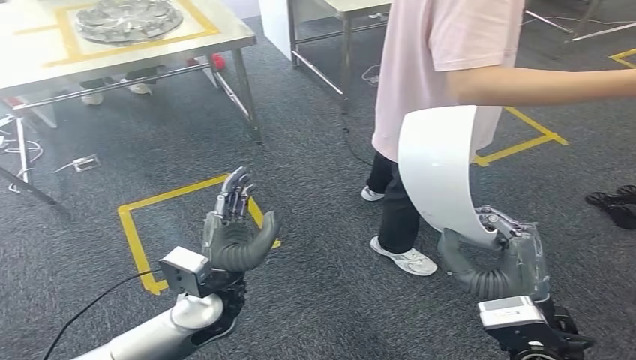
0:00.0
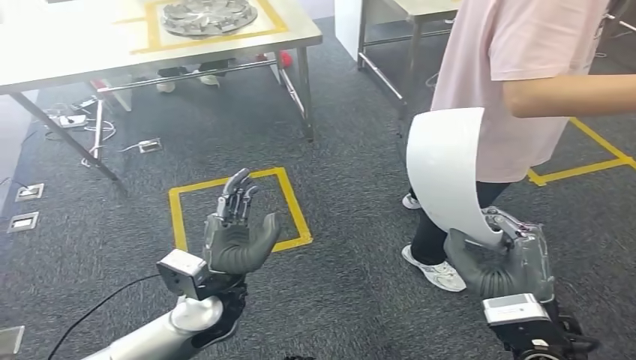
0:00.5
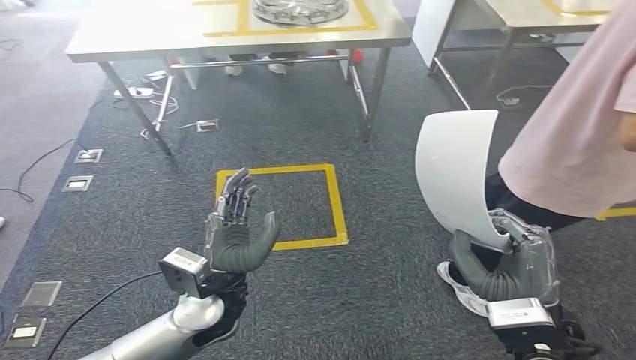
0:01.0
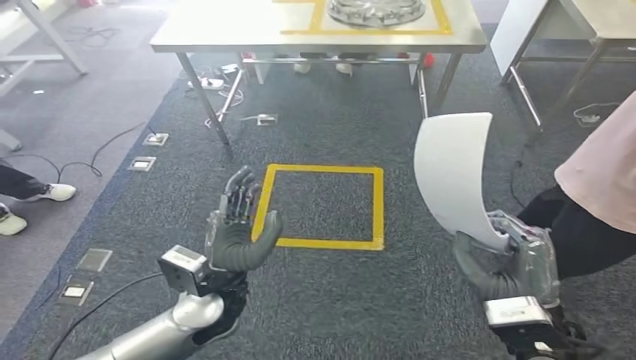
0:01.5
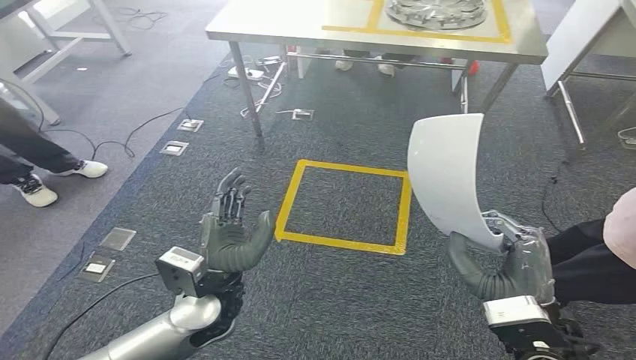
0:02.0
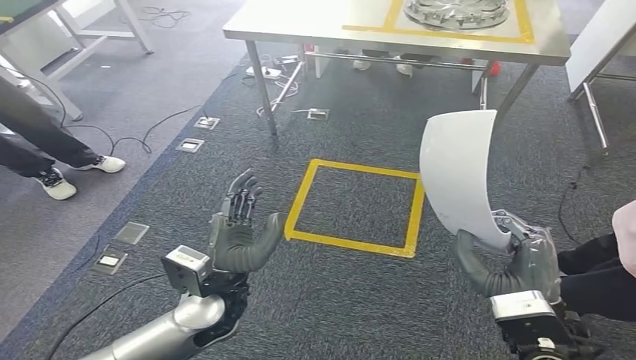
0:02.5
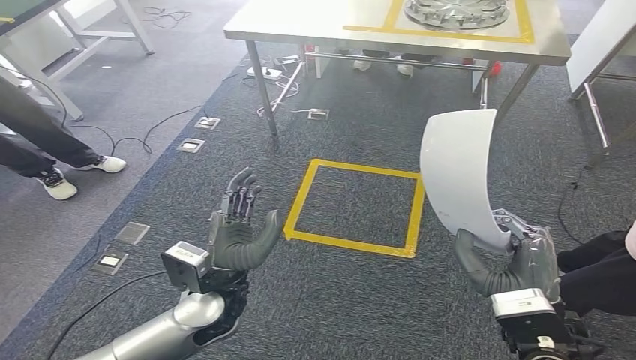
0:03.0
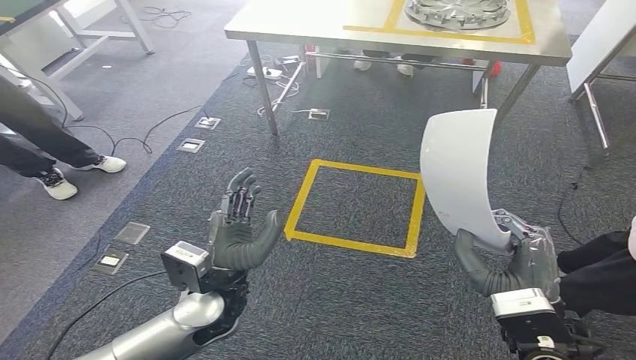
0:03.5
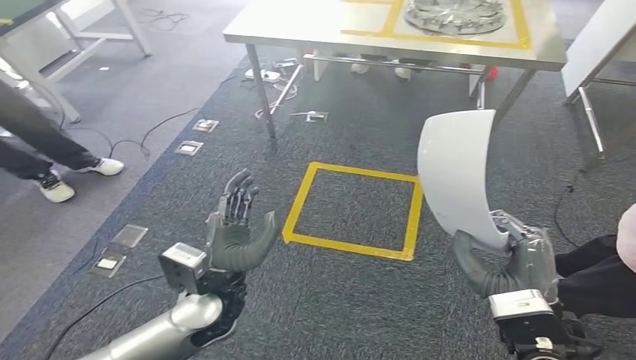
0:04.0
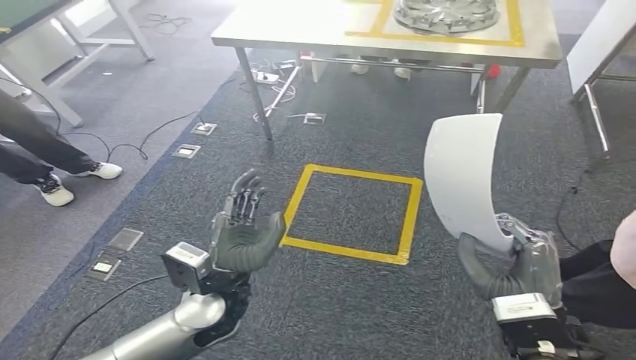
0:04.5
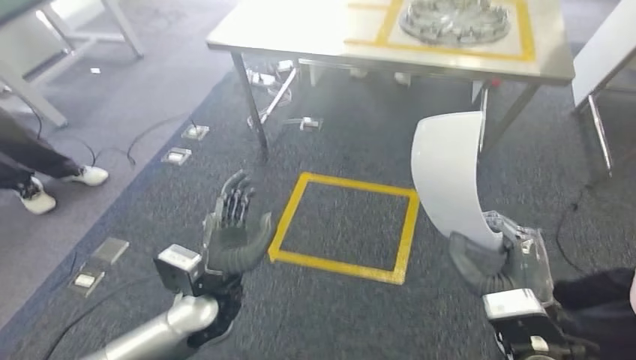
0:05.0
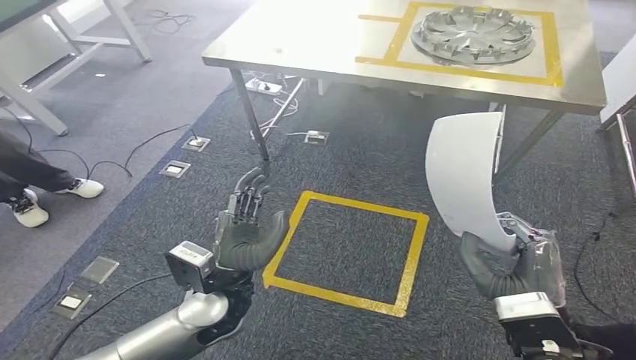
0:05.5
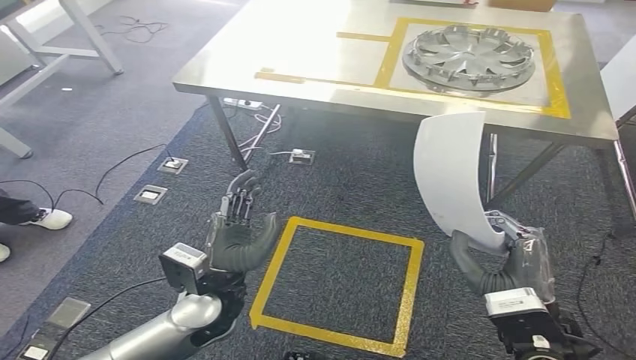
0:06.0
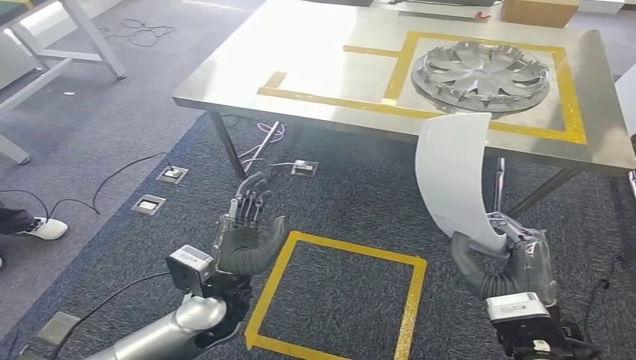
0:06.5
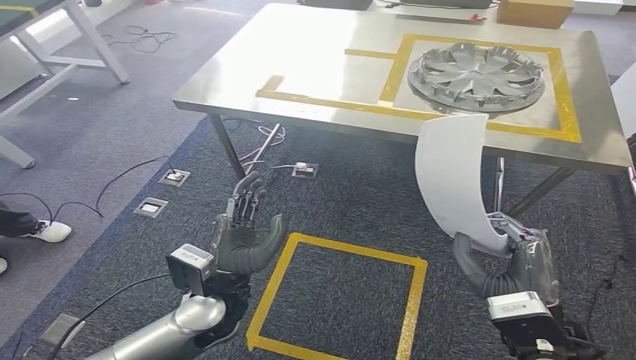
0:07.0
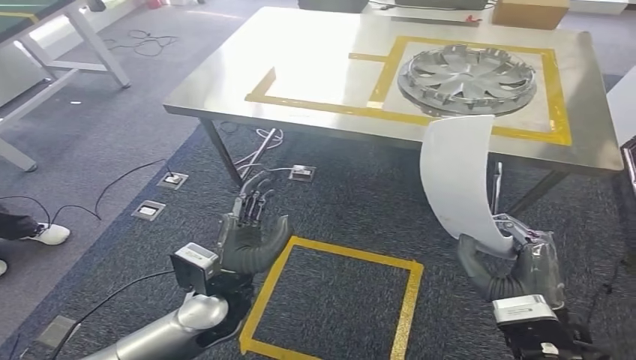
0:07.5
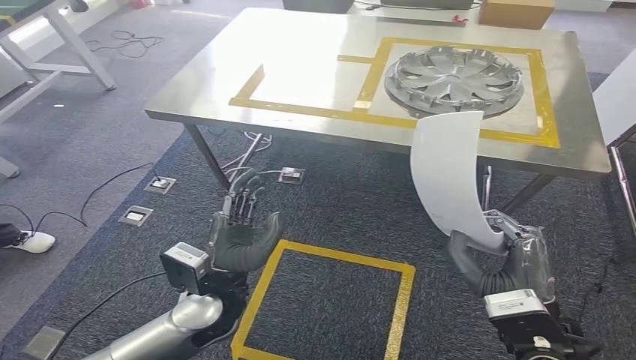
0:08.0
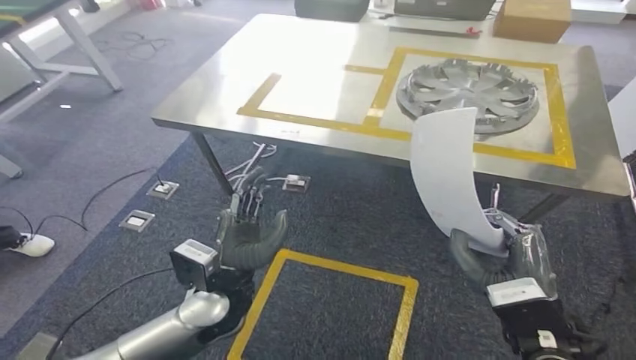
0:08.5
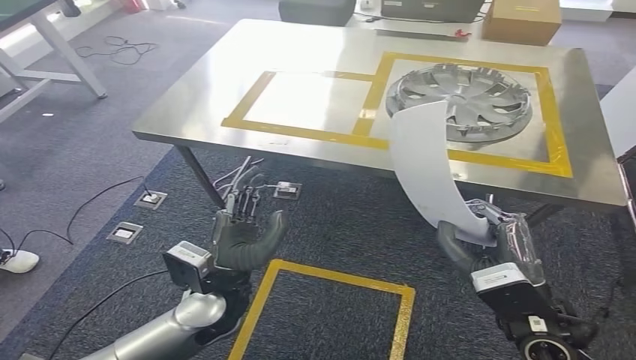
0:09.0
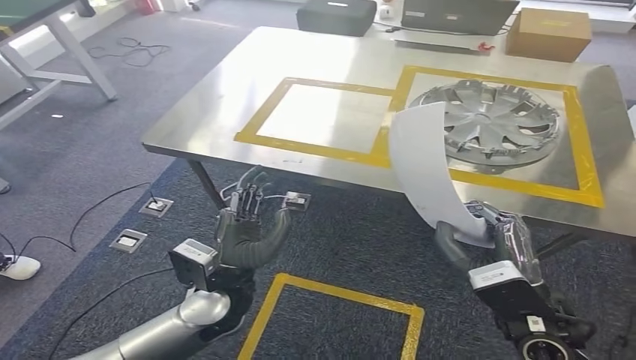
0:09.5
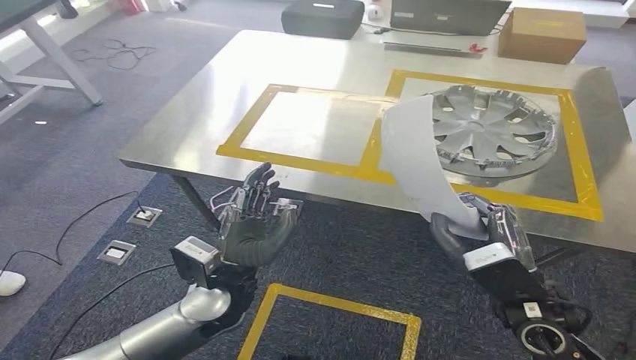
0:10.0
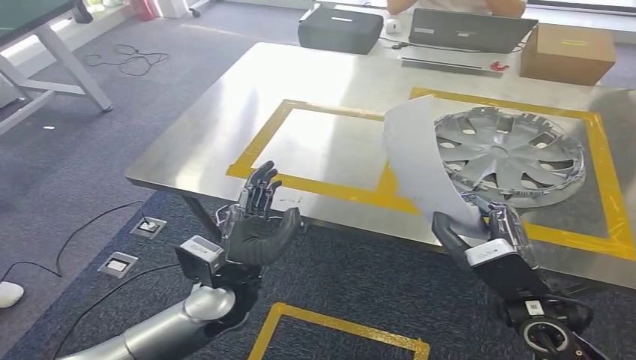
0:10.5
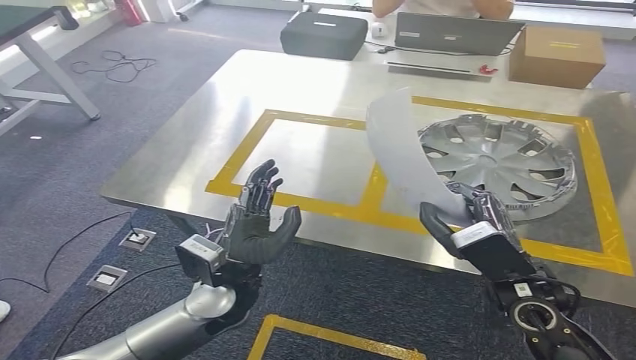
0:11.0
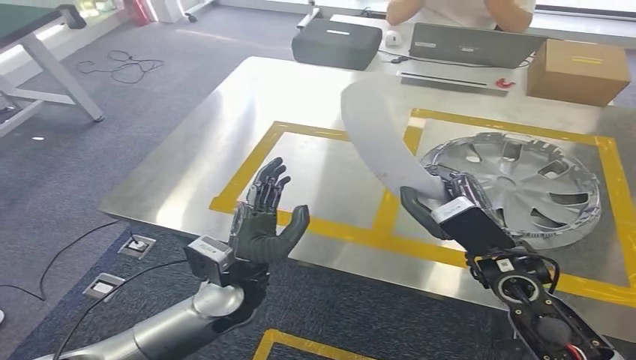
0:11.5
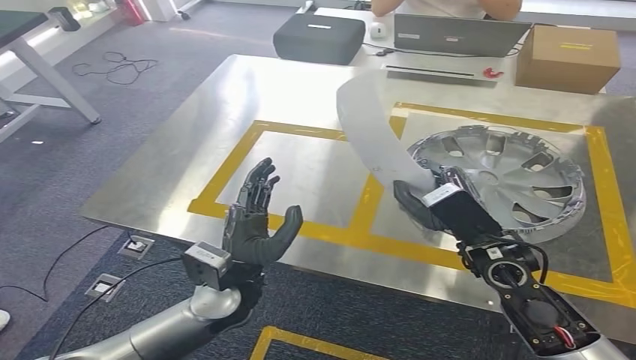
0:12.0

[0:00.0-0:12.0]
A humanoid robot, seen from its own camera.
Step, 0:00.0 to 0:11.0: Move the small component to the workbench.

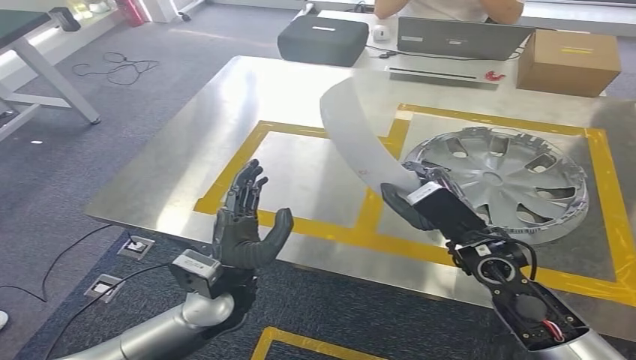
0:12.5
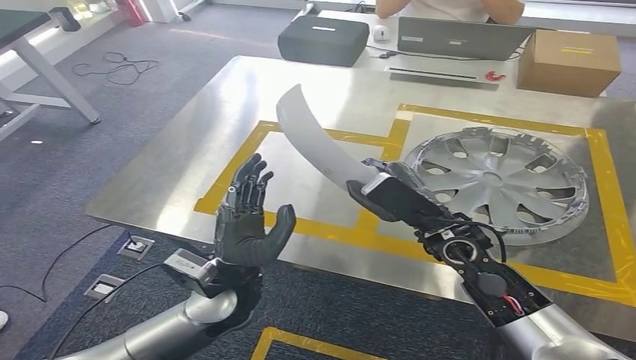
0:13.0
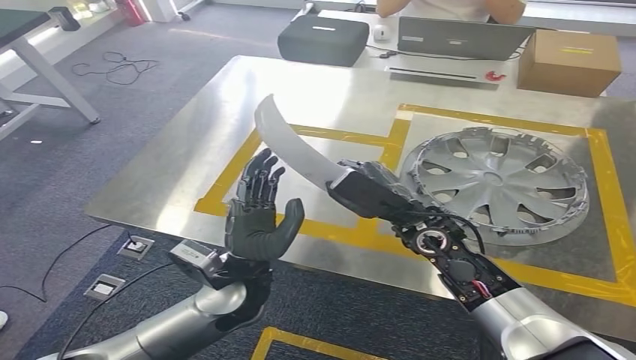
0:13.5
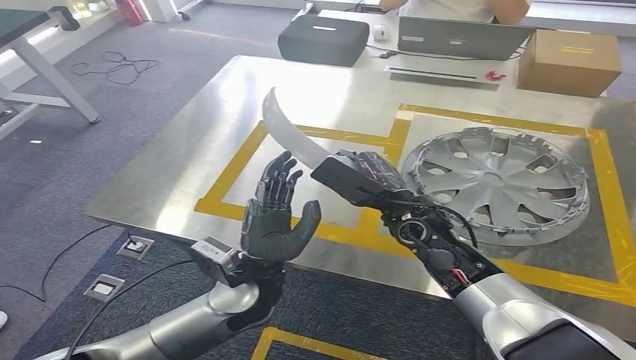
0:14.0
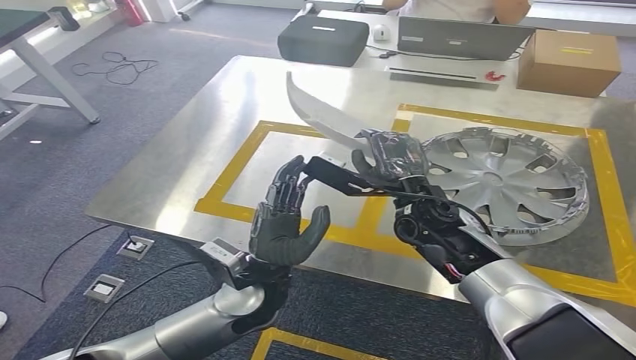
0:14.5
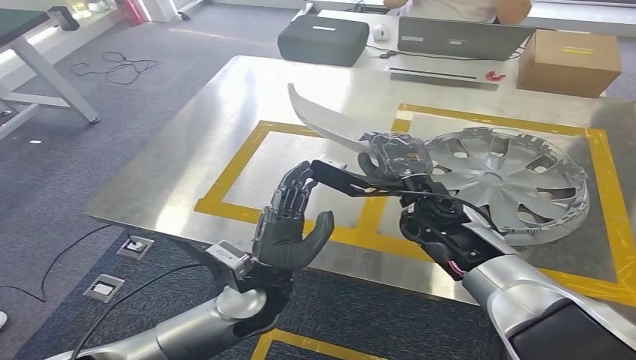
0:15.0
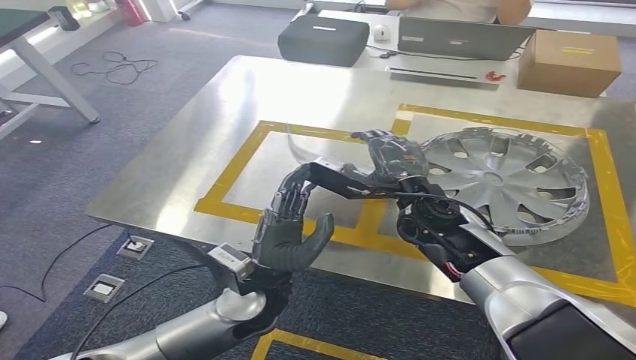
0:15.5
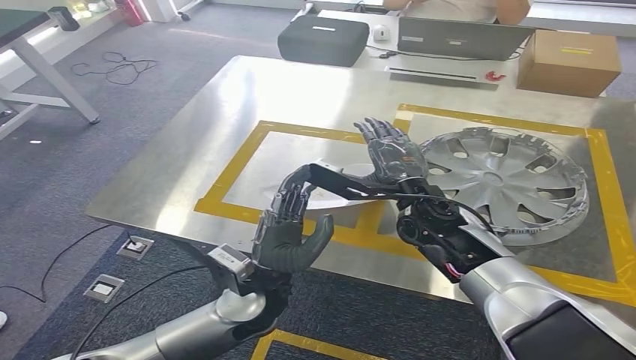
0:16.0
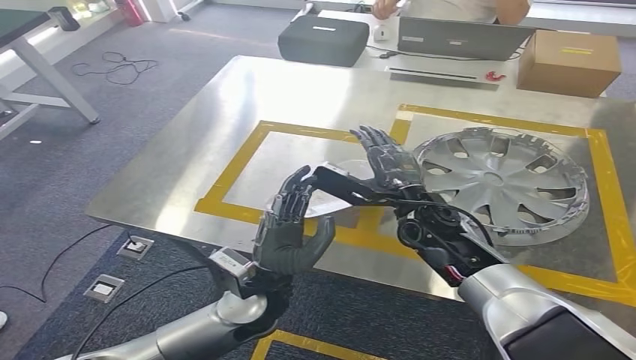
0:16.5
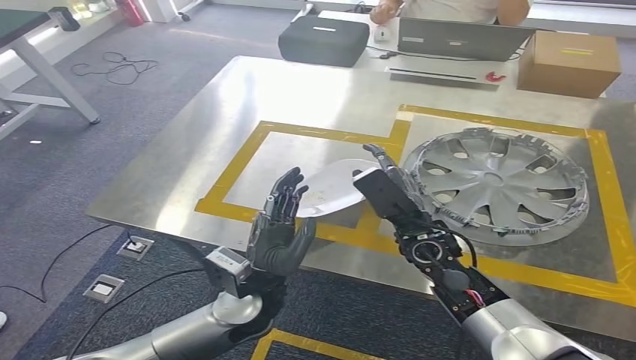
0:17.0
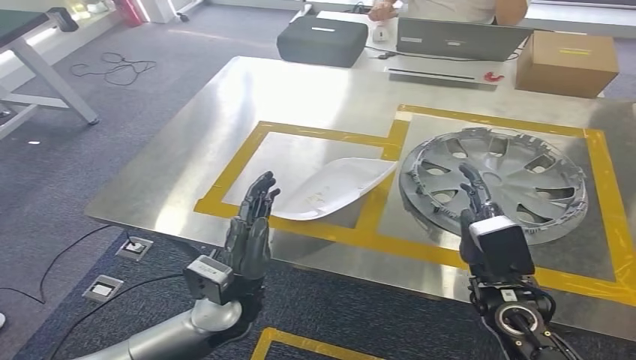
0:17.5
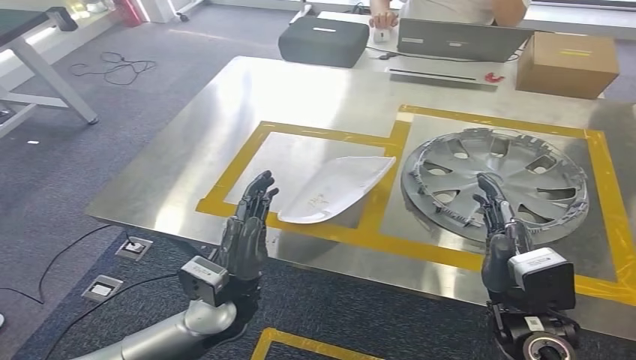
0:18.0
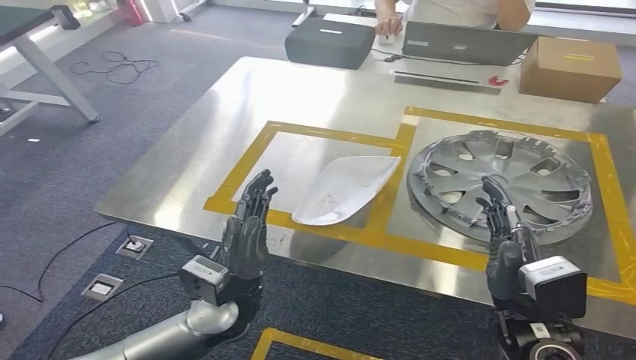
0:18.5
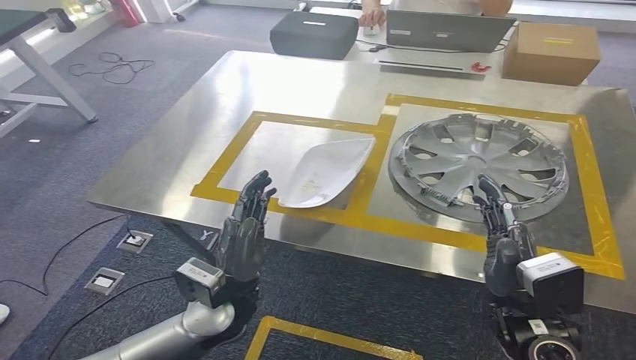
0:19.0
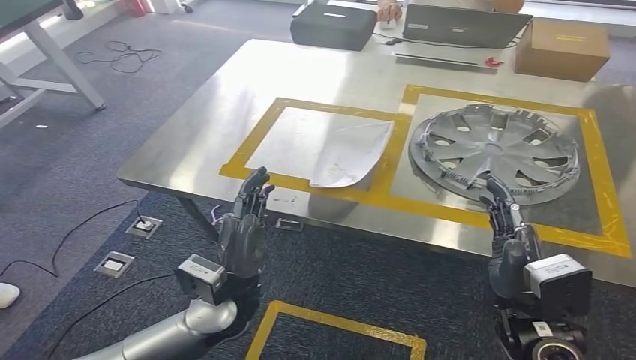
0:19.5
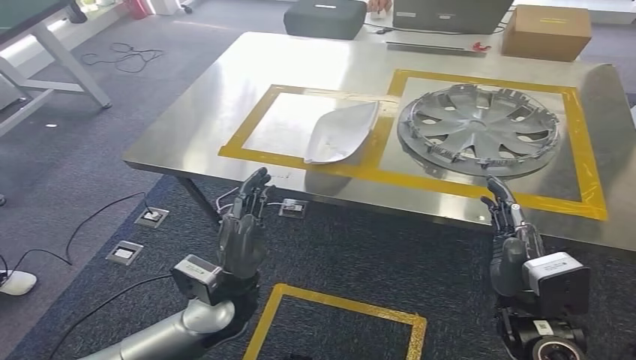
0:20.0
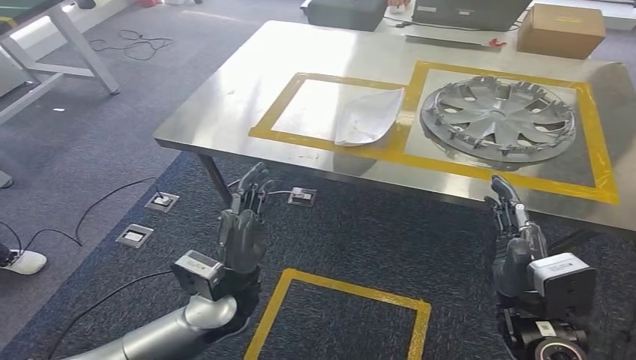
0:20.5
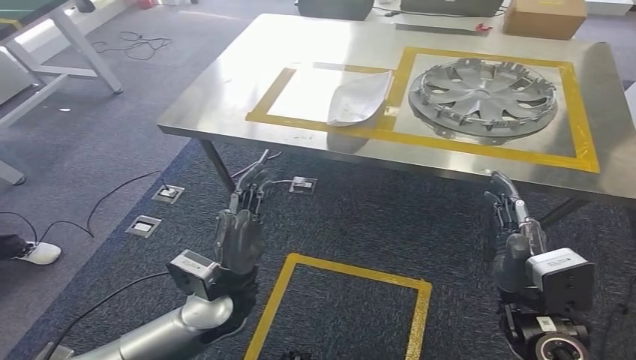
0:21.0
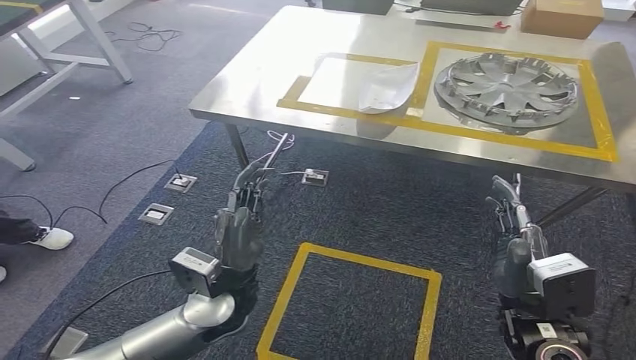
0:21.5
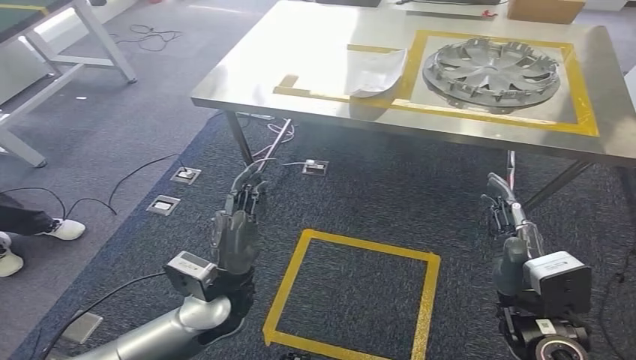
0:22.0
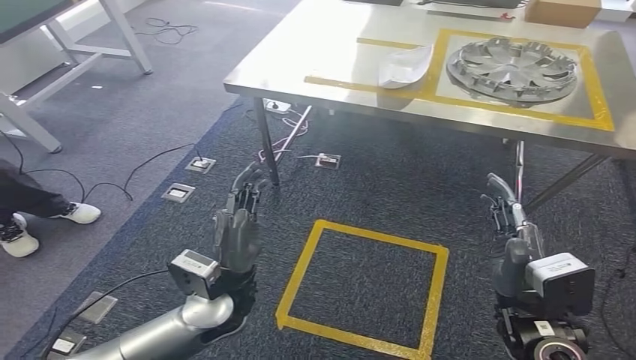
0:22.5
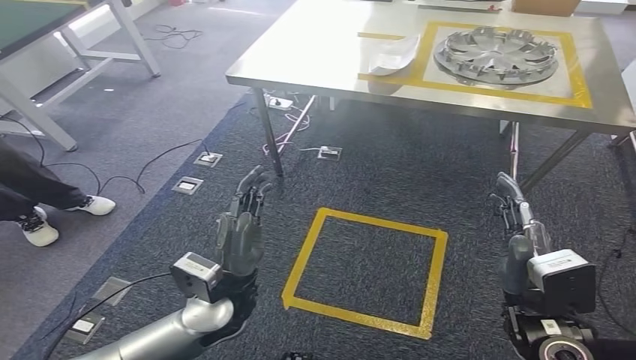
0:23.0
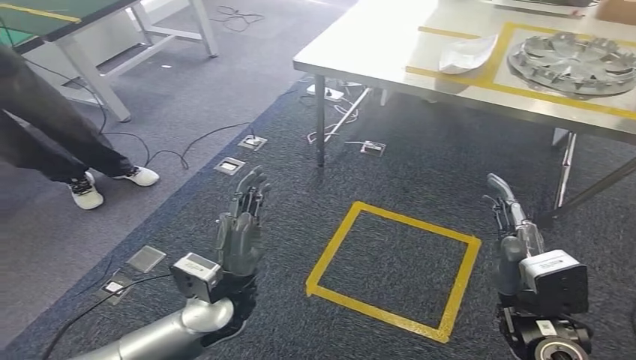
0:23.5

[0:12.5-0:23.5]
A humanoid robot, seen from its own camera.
Step, 0:12.5 to 0:17.5: Insert the small component into the corresponding slot on the workbench.
0:12.5 to 0:14.5: The right hand is displaced to the left and forward by approximately 10 cm.
0:14.5 to 0:16.0: The hands stay close to where they were, moving slightly.
0:16.0 to 0:18.0: The right hand is displaced backward and to the right by approximately 20 cm.
